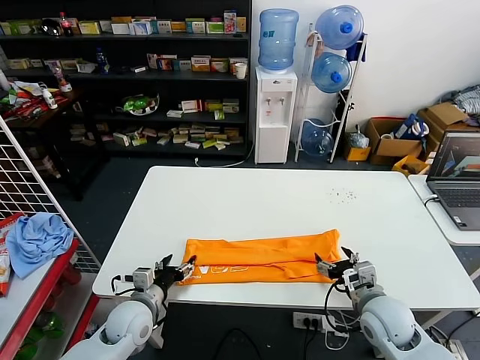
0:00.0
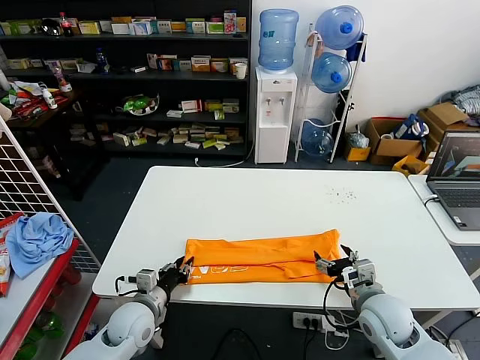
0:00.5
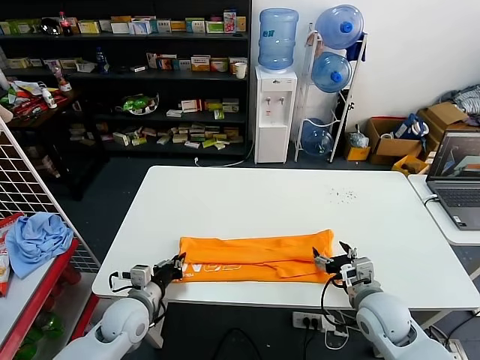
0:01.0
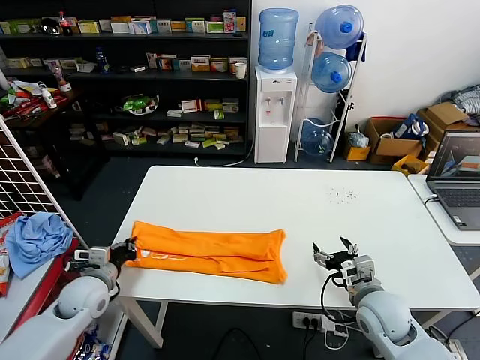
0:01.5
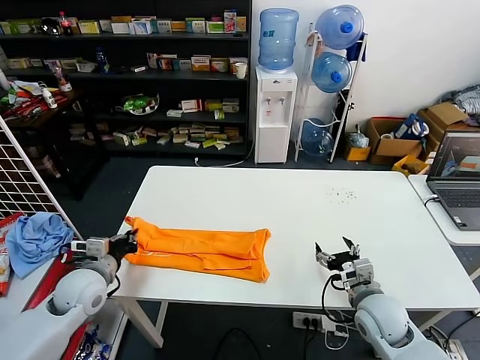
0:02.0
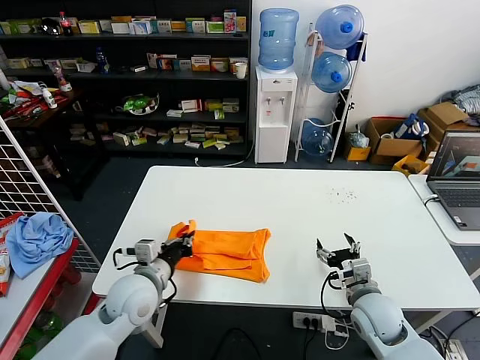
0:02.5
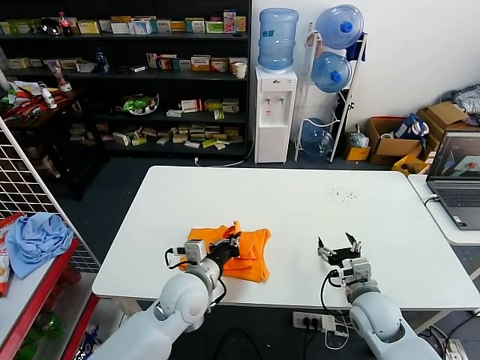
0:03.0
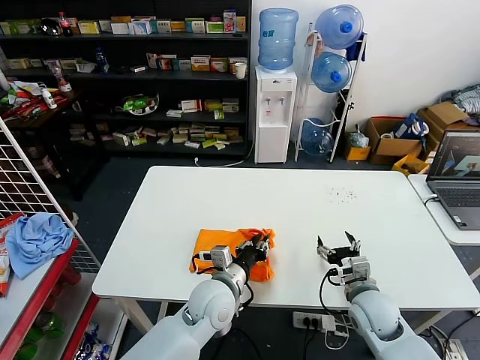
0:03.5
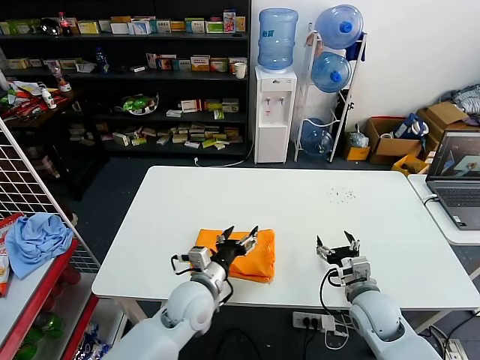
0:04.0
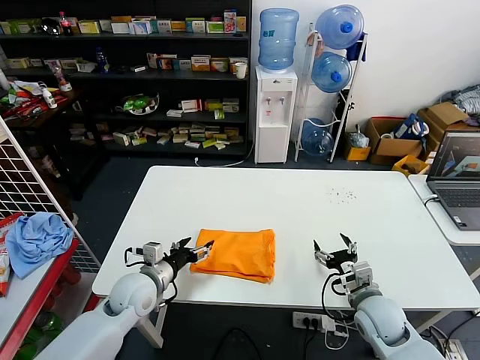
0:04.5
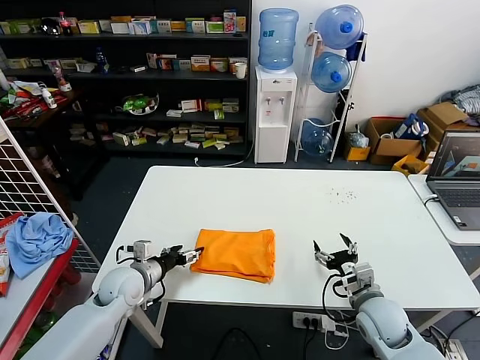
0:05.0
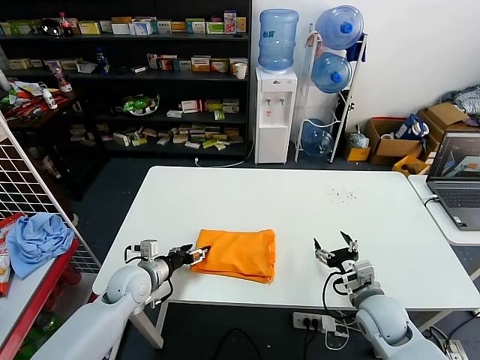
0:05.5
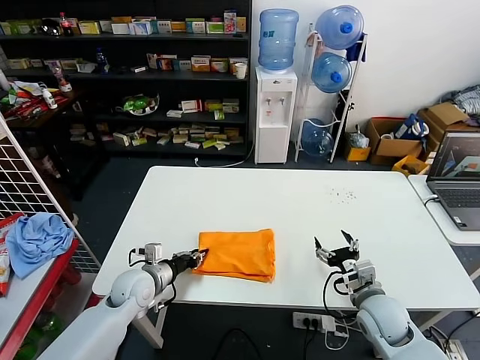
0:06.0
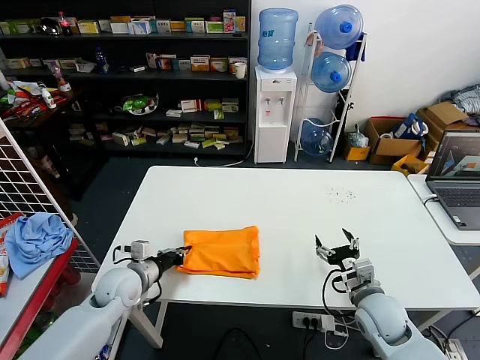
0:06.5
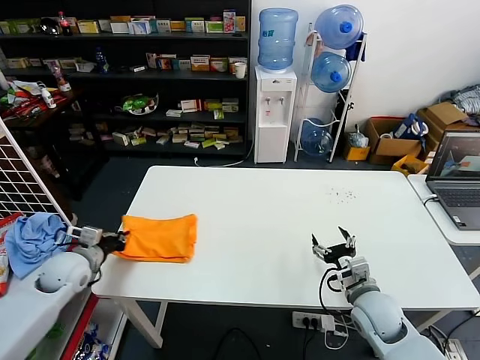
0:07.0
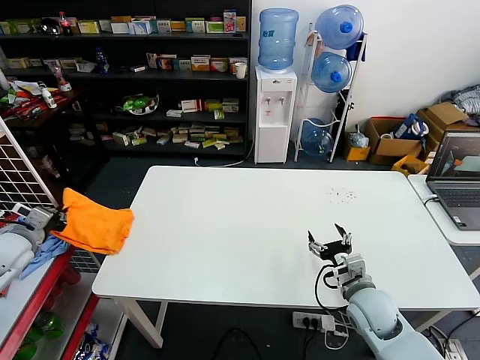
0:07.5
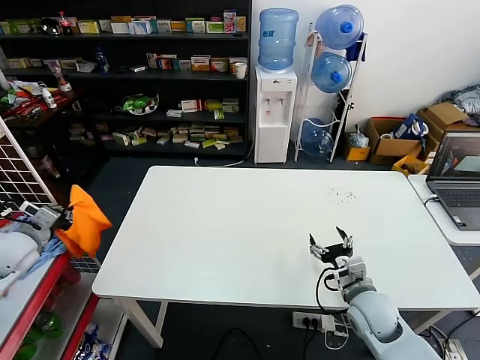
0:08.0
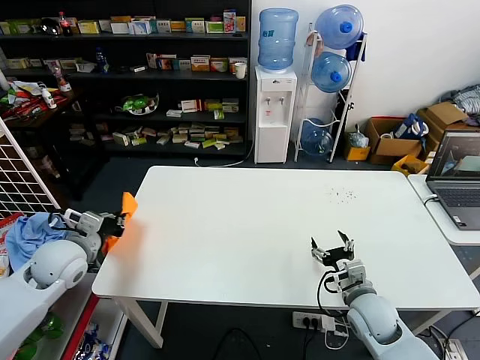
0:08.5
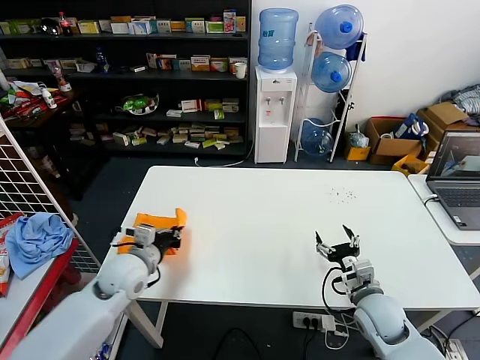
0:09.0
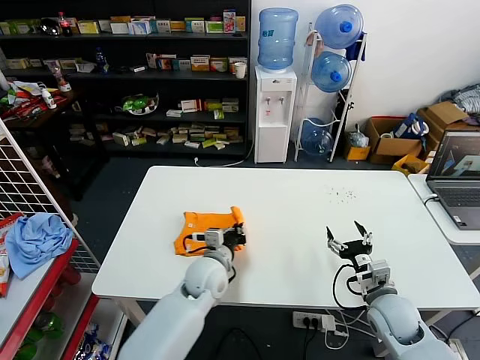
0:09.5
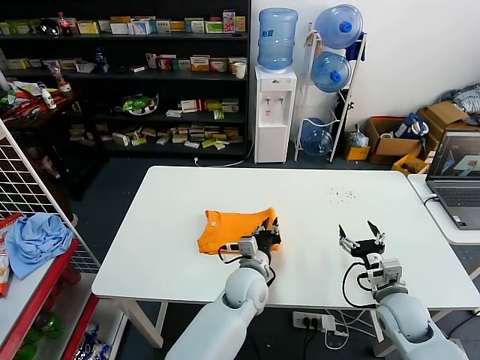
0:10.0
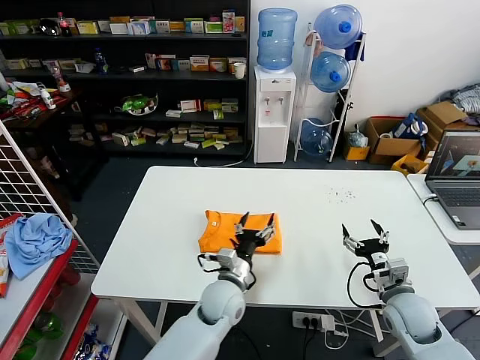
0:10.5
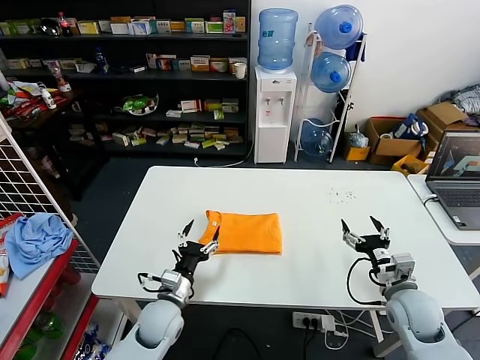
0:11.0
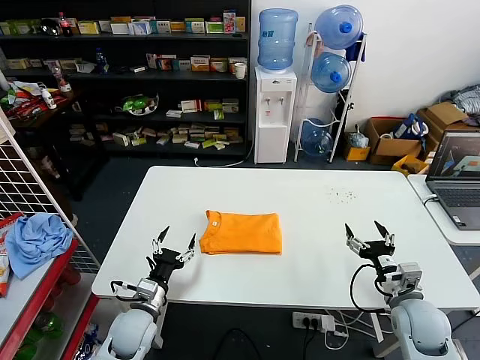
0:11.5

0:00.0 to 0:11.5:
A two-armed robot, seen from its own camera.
Task of the whole recording: fold and organize the clothes.
Step, 0:01.0 to 0:03.5: use the left gripper to drag the left edge of the fabric to the left and folds it over the right edge.
Step, 0:04.0 to 0:10.0: Flip the folded clothes over with left gripper.
0:00.0 to 0:02.0: The left gripper travels to the left and upward by about 15 cm, and closes.
0:02.0 to 0:04.0: The left gripper heads to the right, covering approximately 25 cm, and opens up.
0:04.0 to 0:06.0: The left gripper goes about 15 cm to the left, and closes.
0:06.0 to 0:07.5: The left gripper shifts approximately 25 cm to the left and upward.
0:07.5 to 0:09.5: The left gripper moves to the right, some 40 cm.
0:09.5 to 0:11.5: The right gripper ends up some 5 cm from where it was, while the left gripper shifts some 20 cm to the left, backward and downward, and opens.
